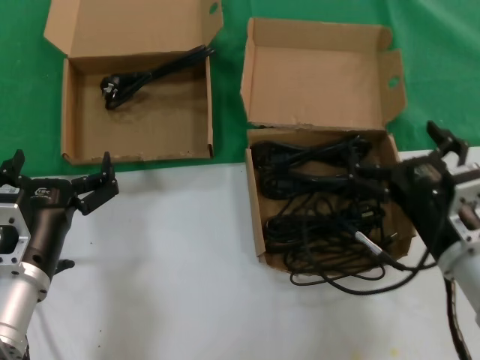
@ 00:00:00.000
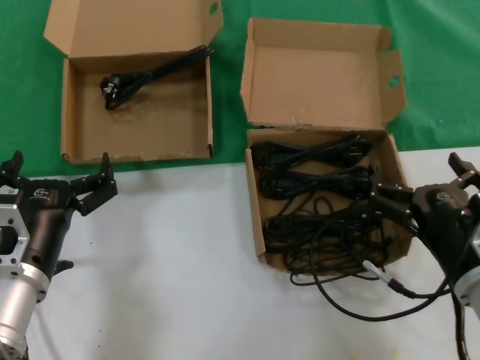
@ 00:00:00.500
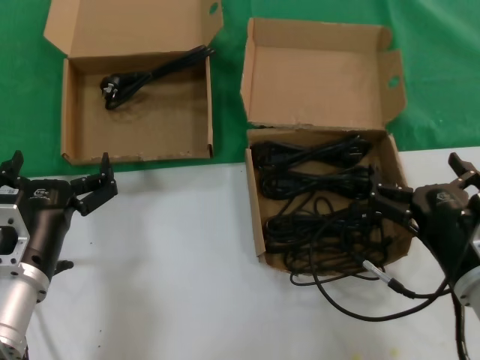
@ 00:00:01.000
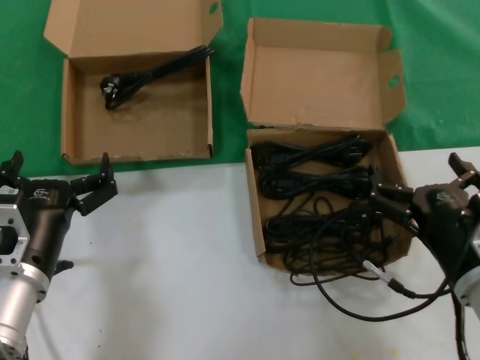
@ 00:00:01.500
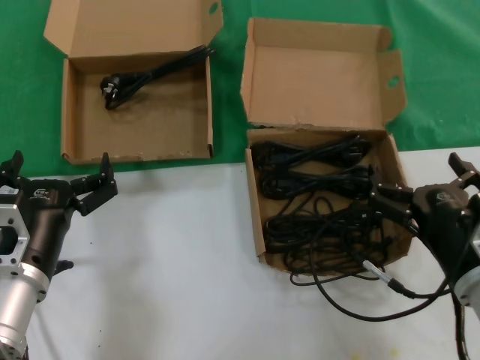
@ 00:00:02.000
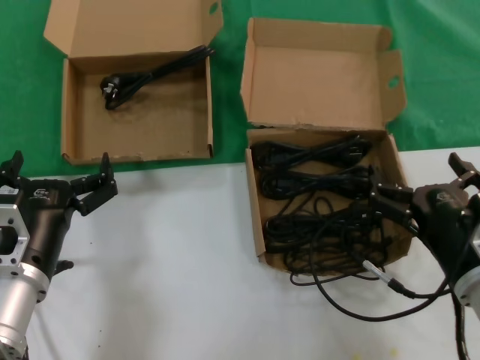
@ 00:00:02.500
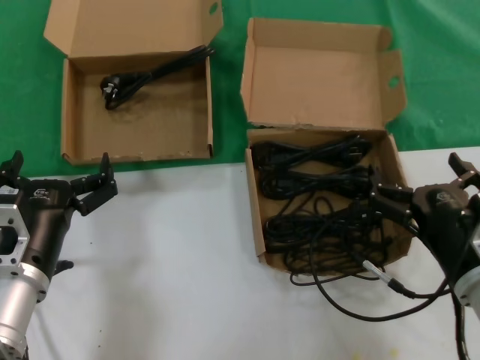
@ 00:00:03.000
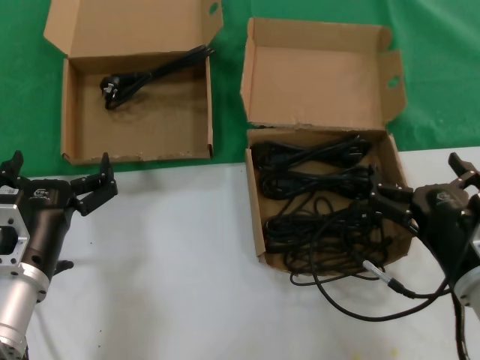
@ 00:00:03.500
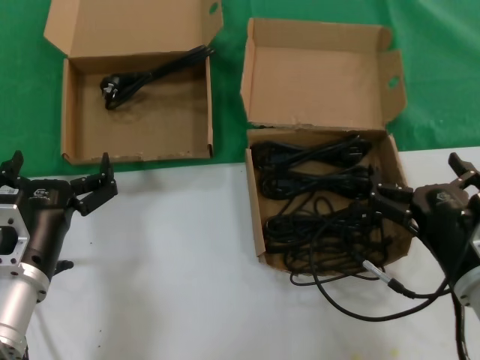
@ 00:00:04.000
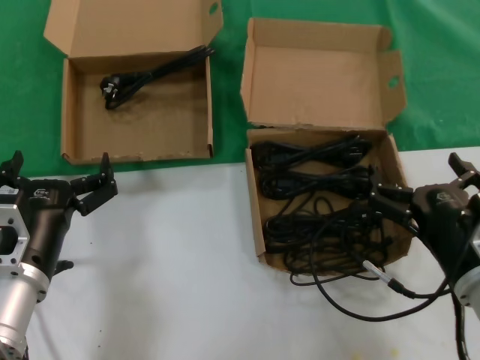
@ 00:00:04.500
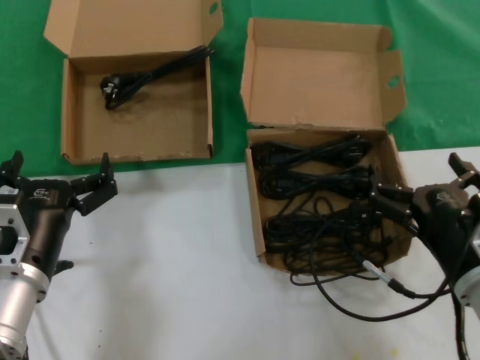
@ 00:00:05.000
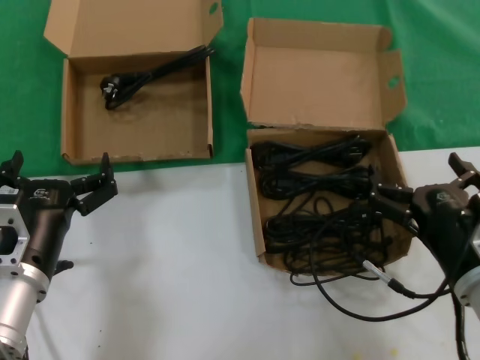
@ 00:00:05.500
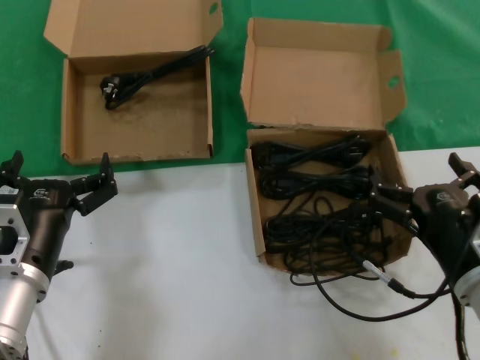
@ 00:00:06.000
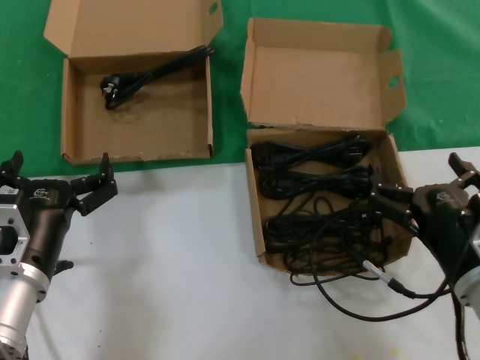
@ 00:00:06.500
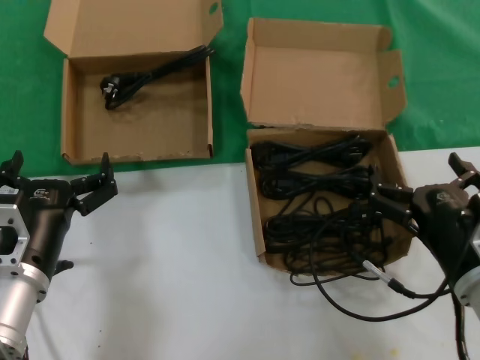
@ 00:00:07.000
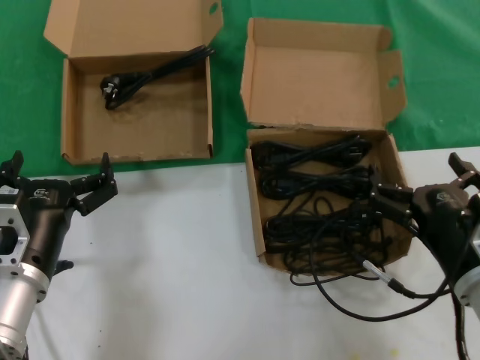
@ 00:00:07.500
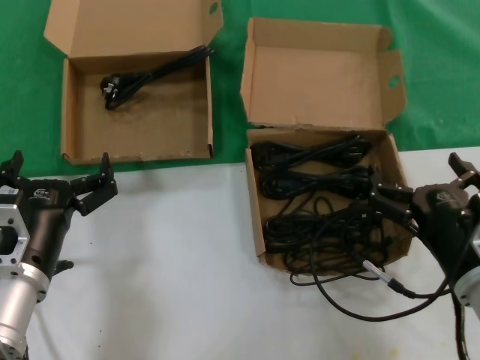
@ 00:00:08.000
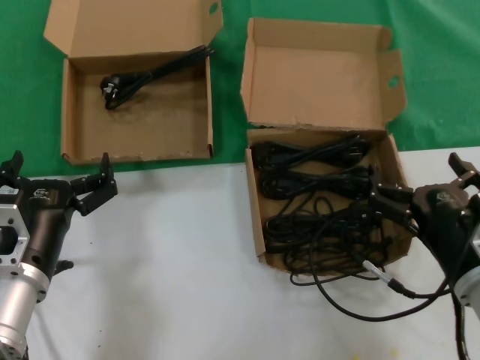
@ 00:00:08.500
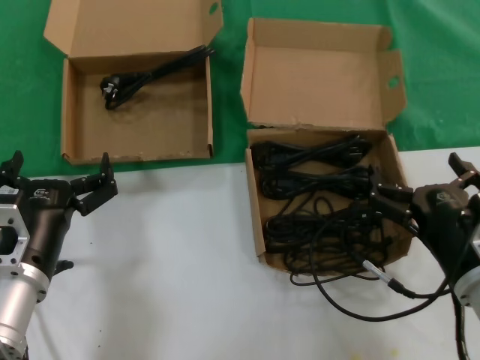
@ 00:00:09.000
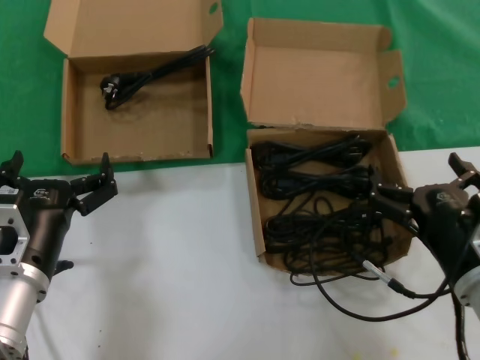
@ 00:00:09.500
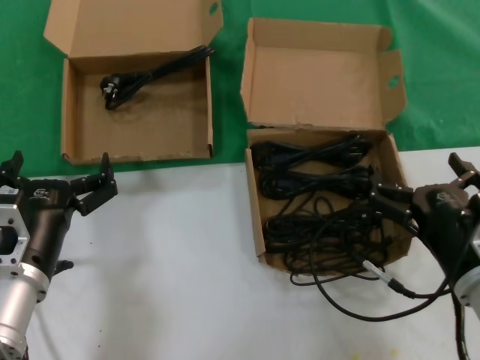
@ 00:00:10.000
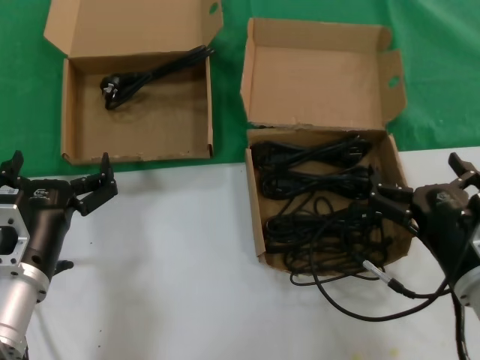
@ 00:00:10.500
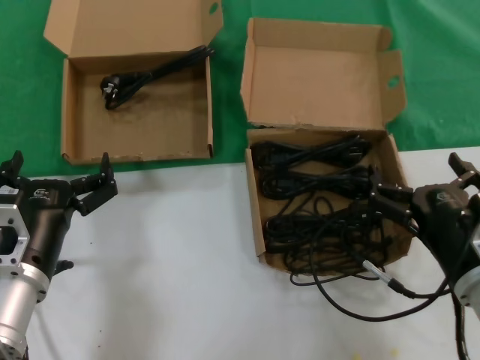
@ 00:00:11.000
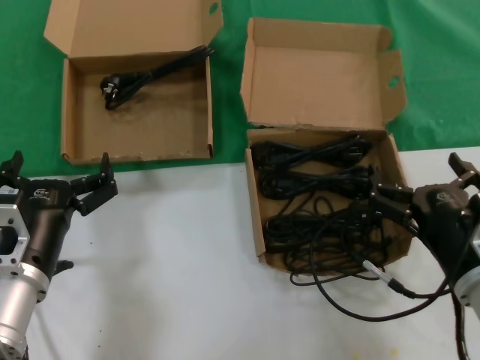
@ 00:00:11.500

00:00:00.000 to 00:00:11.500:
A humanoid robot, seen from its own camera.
Task of the whole recording: take the parts from the box containing them and put them into an empty box.
00:00:00.000 to 00:00:02.000: The hands stay close to where they were, moving slightly.
00:00:02.000 to 00:00:11.500: Neither hand changes place.
